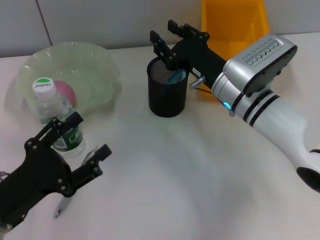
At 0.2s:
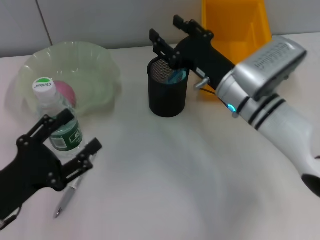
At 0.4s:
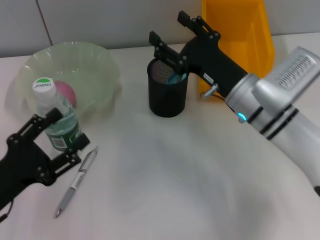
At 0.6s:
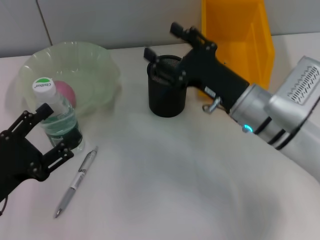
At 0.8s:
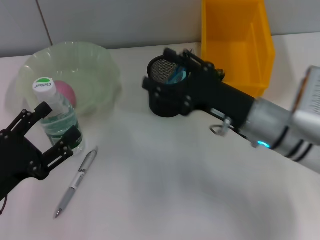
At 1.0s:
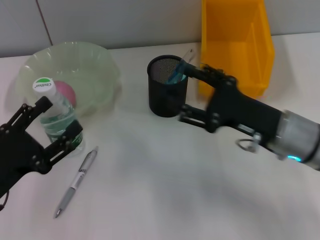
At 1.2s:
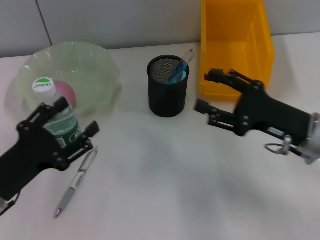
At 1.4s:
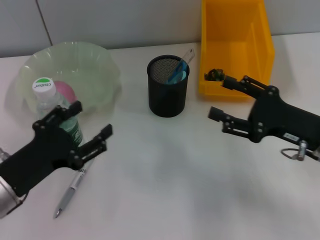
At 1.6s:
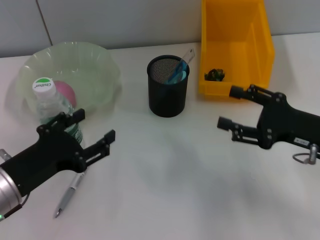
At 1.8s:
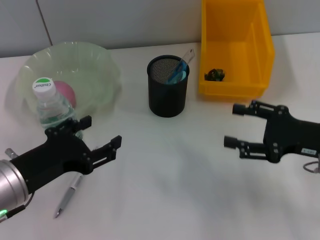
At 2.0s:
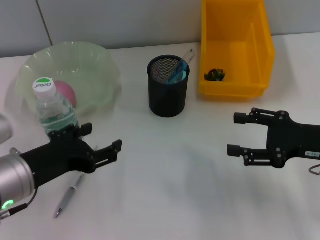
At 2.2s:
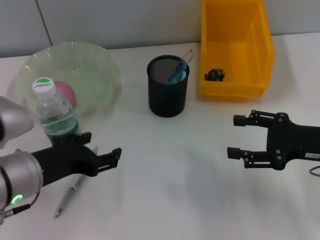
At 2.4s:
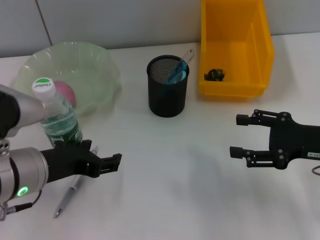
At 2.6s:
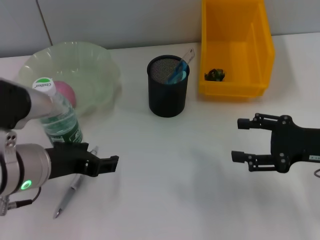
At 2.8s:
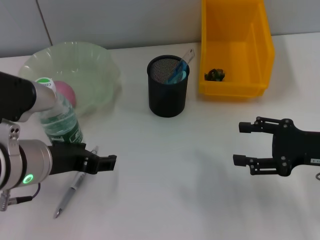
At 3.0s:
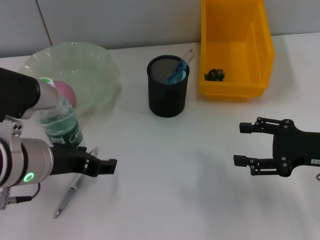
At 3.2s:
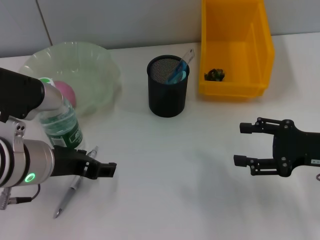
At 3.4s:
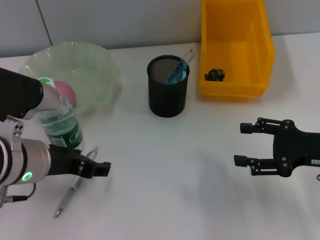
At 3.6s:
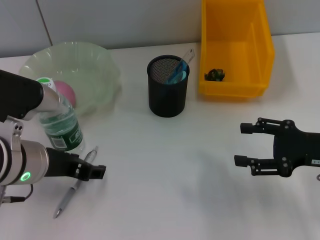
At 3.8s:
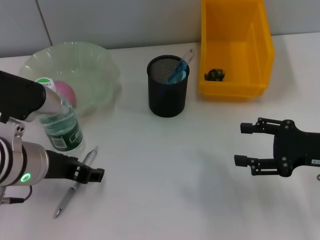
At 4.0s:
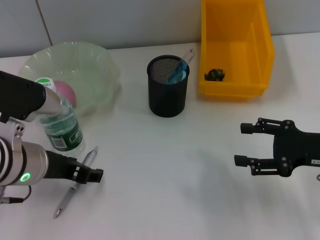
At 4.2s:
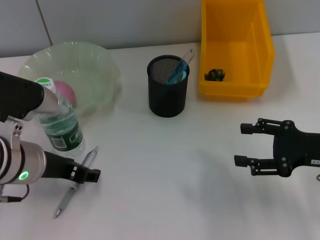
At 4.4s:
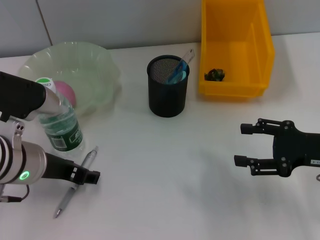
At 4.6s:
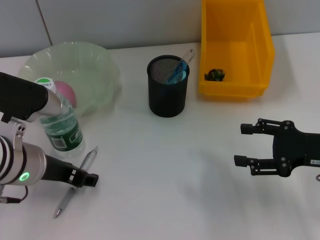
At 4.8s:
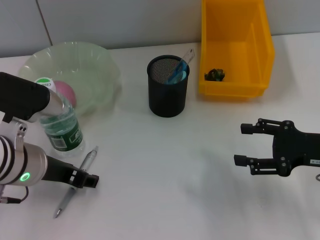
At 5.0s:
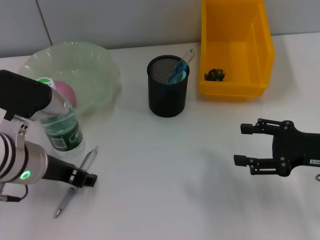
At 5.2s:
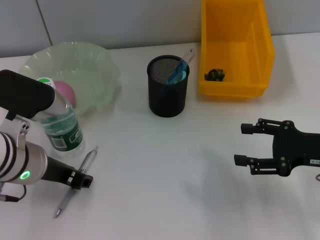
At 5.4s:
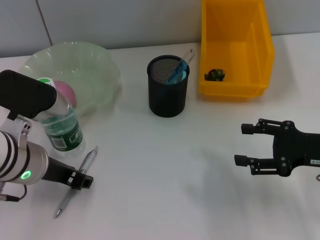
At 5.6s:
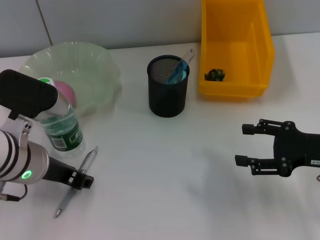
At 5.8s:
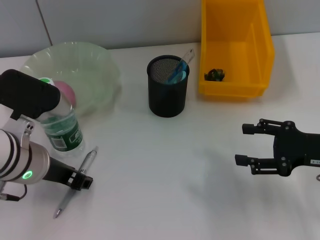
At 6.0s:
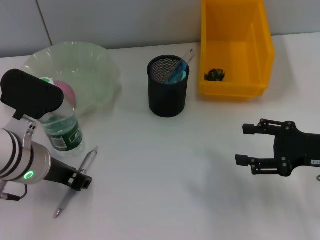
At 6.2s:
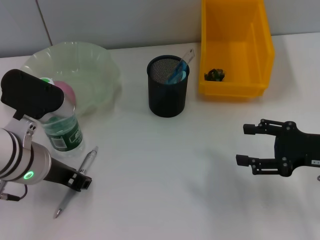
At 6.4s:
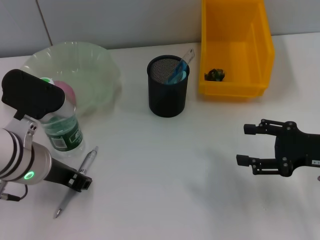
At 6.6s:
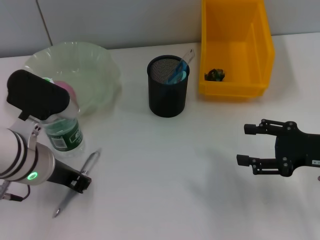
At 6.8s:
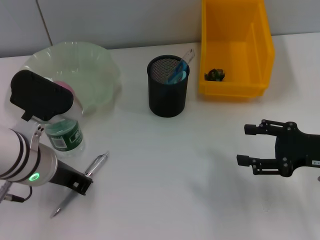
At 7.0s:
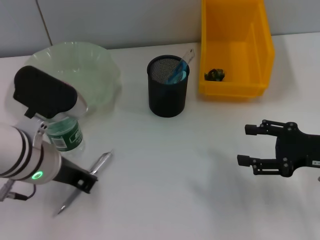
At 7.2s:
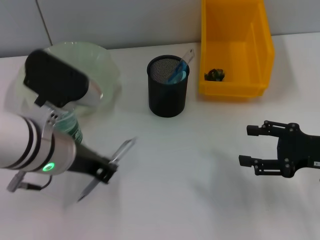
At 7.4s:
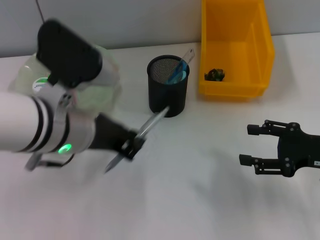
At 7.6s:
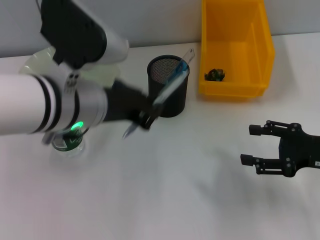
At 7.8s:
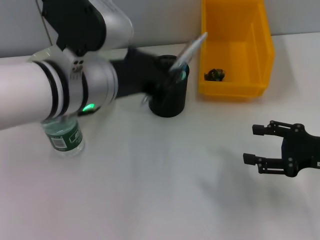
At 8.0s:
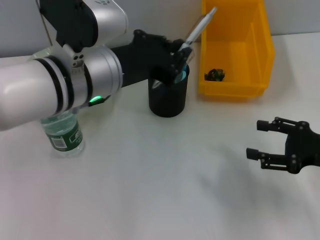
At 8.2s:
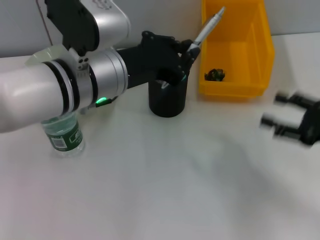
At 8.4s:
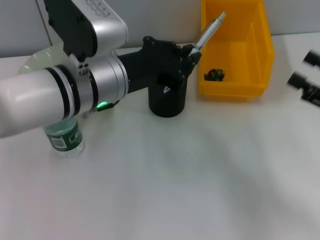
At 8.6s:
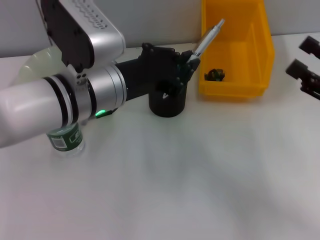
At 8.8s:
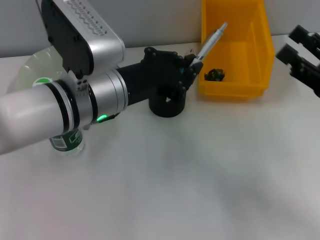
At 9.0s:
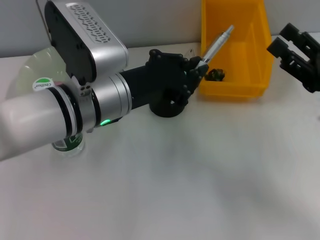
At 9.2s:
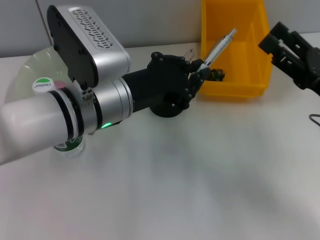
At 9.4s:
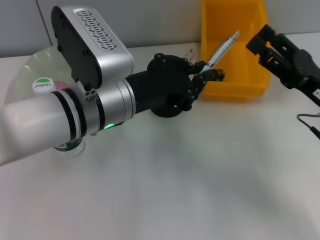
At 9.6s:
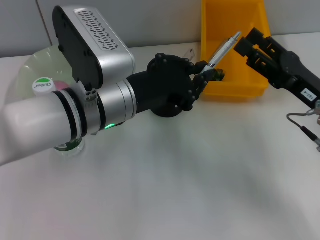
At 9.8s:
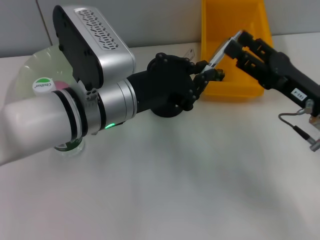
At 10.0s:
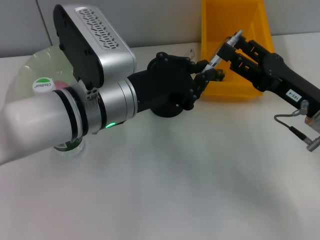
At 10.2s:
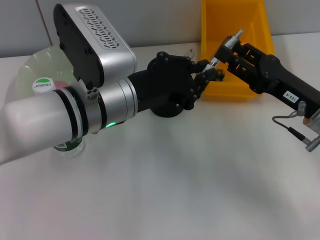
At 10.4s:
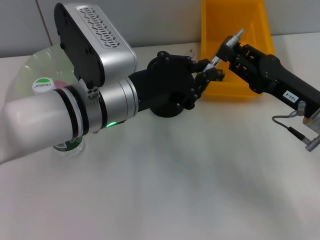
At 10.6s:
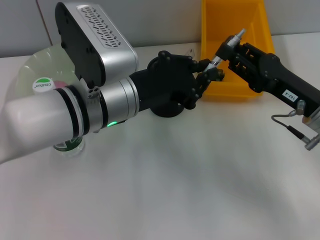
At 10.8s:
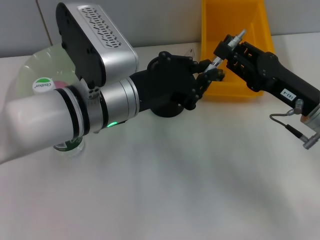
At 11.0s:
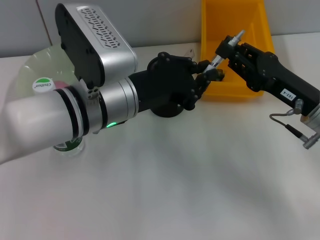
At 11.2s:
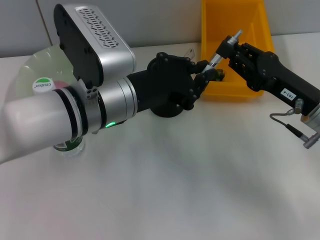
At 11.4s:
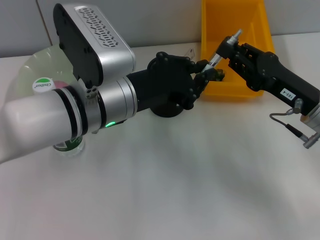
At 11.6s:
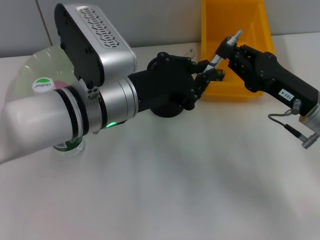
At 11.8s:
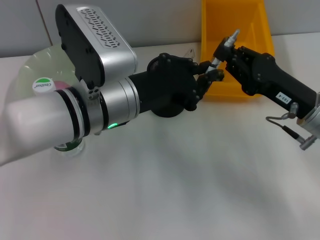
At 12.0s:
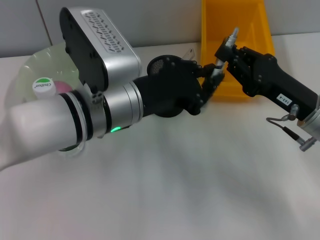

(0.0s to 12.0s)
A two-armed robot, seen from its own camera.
Step, 0.2s - 6.6s: Grab the gray spring-action pen with the left hand.
0.0s - 1.6s: The right gripper goes approximately 15 cm to the right and backward, and opens. The left gripper ends up approximately 5 cm from where it was.
1.6s - 3.0s: The left gripper goes some 5 cm forward.
3.0s - 4.4s: The grippers stay close to where they were, moving slightly.
4.4s - 6.0s: The left gripper closes its fingers.
6.0s - 7.6s: The left gripper goes some 10 cm upward and to the right, and closes its fingers.
9.0s - 10.4s: The right gripper changes place by about 5 cm.
10.4s - 12.0s: The right gripper closes.

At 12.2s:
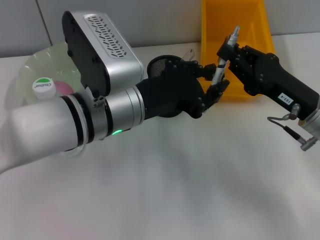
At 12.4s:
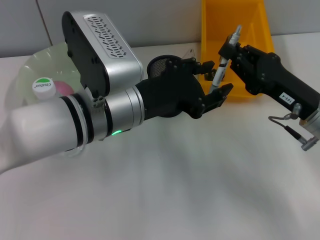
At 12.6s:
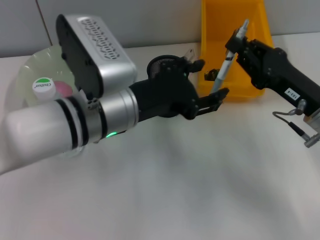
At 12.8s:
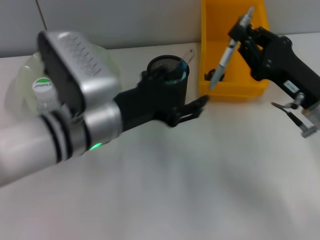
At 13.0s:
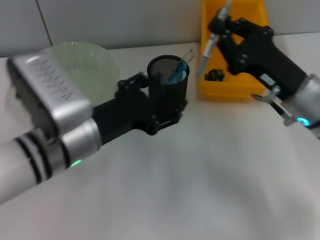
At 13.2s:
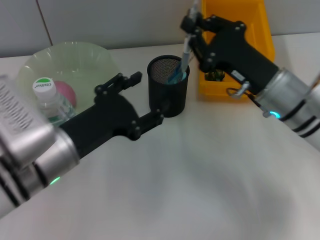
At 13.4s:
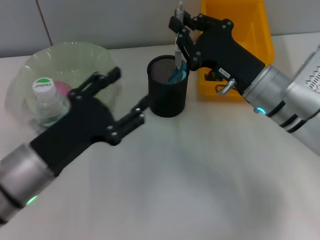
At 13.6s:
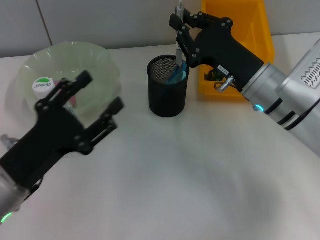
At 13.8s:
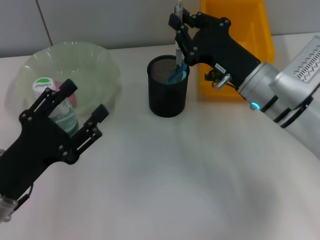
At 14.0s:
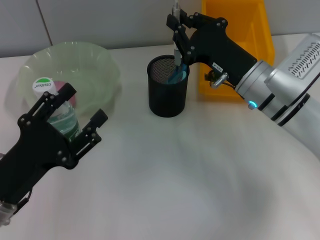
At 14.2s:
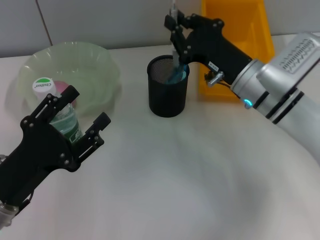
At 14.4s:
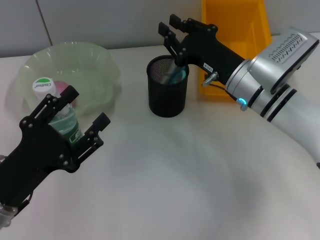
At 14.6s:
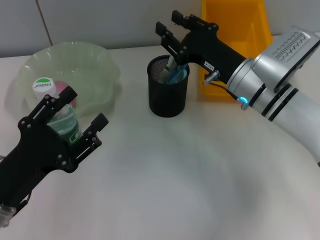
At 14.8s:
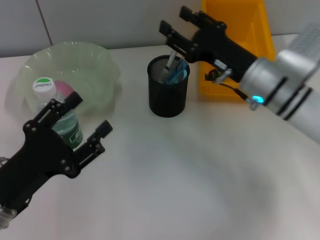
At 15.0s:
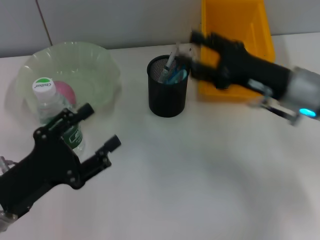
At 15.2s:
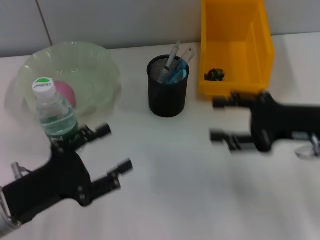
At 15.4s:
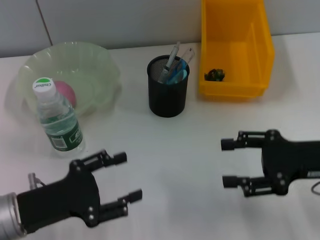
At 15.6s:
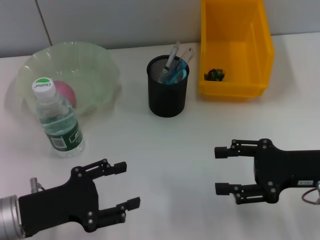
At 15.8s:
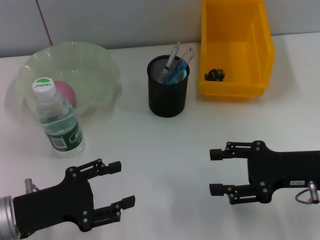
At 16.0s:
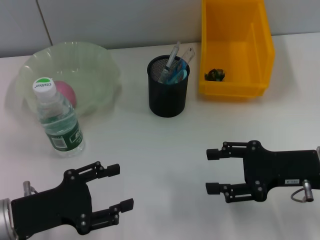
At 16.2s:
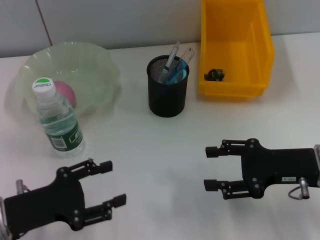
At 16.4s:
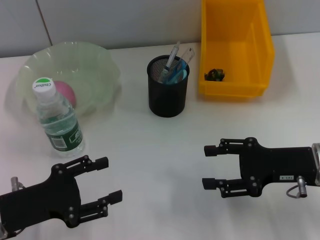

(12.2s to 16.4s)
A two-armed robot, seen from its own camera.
Step, 12.4s - 14.6s: Place the gray spring-action pen into the pen holder with the right hand.
12.2s - 13.6s: The right gripper shifts about 10 cm to the left and forward. The left gripper goes approximately 20 cm to the left, backward and downward, and opens its fingers.
13.6s - 15.0s: The right gripper goes approximately 5 cm to the right, and opens its fingers.
15.0s - 16.4s: The right gripper moves backward, approximately 5 cm.

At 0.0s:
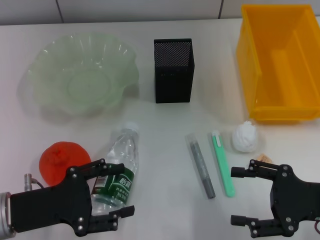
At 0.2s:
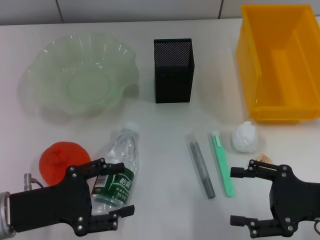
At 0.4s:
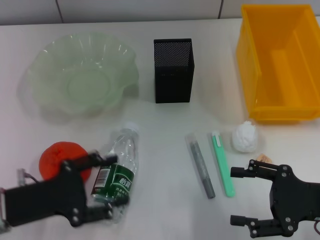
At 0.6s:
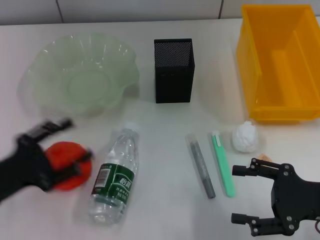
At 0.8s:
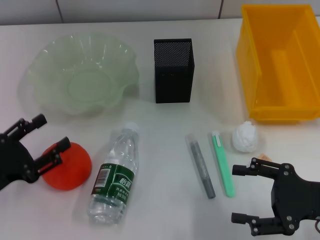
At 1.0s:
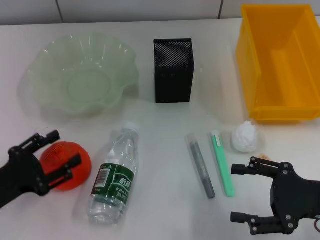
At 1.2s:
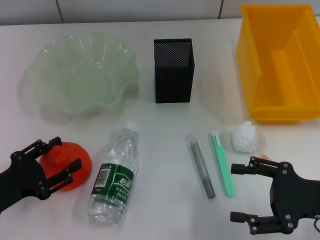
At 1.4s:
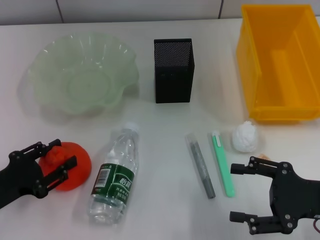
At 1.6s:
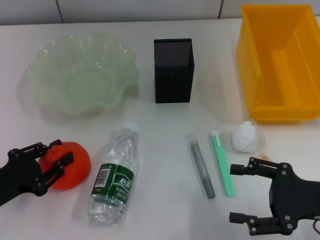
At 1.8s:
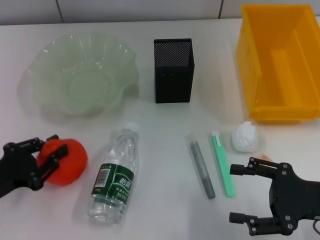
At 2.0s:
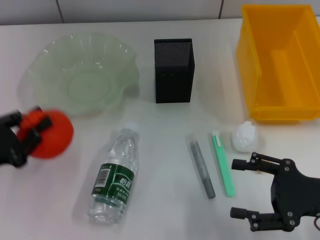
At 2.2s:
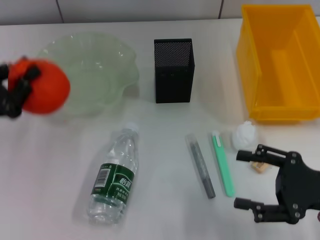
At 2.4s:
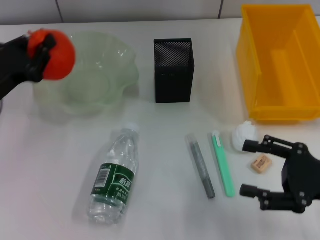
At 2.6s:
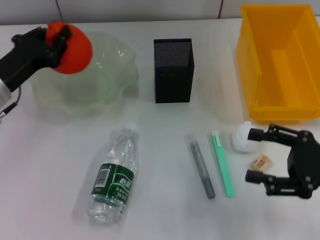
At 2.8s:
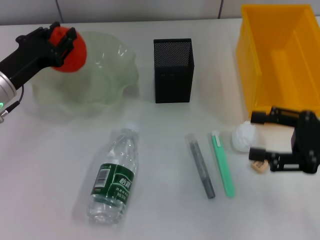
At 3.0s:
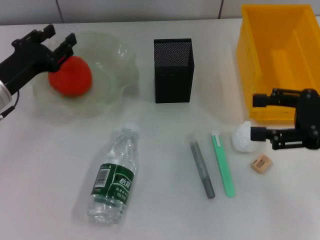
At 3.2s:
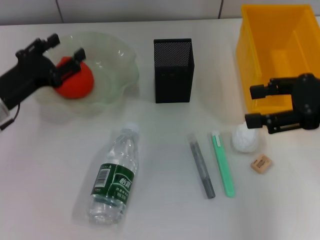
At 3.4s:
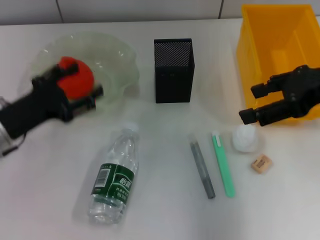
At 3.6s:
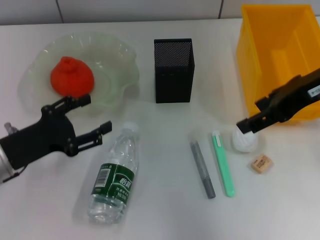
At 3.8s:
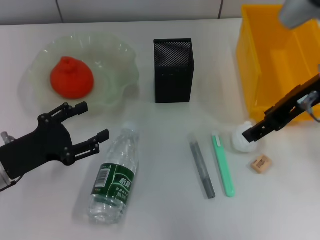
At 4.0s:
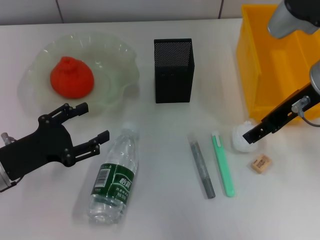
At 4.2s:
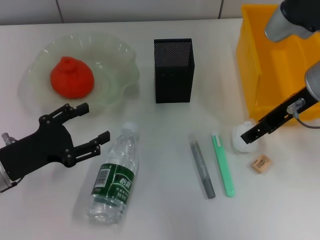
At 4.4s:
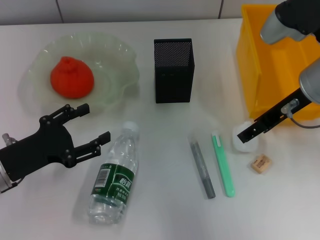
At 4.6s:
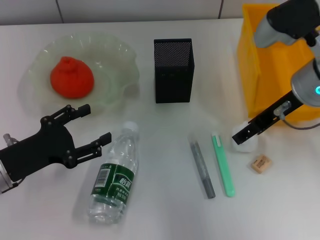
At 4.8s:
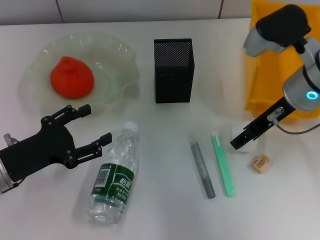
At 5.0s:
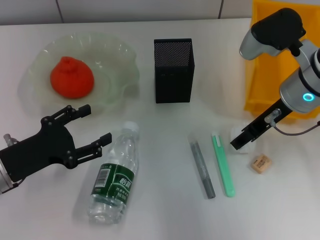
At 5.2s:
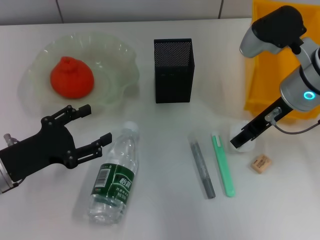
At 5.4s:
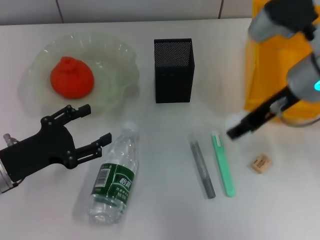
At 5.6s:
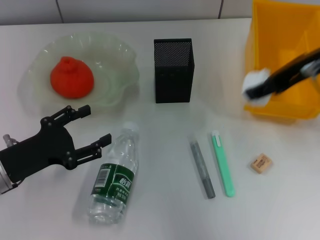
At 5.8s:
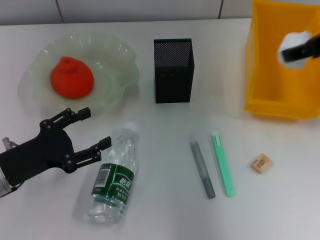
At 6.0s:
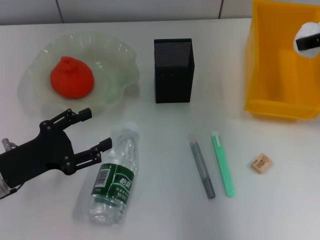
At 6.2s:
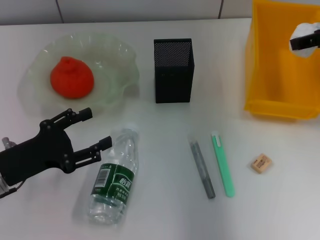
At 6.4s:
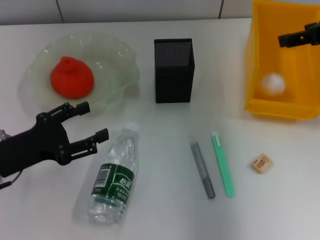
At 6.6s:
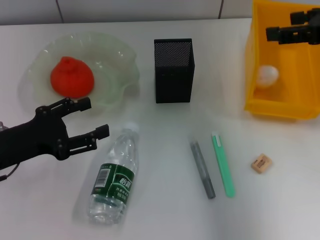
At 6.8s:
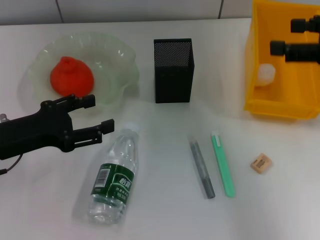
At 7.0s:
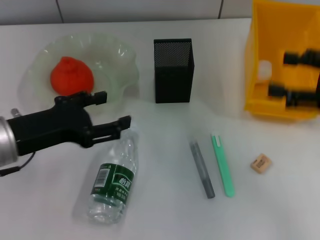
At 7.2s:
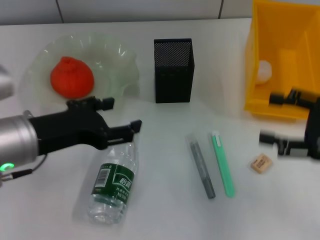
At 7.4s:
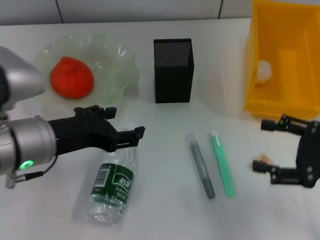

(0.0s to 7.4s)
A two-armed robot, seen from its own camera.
Step, 0.0s - 1.4s: Grab the orange with the left hand.
Step, 1.6s - 2.8s: Place the orange into the fruit bowl with the left hand.
Step, 3.2s - 5.0s: Grab the paper ball with the right hand.
Step, 5.2s - 6.2s: Place the paper ball into the trash can with the right hand.
0.0s - 1.4s: The left gripper heads to the left, covering roughly 5 cm.
1.4s - 3.0s: The right gripper is displaced upward and forward by approximately 10 cm. Meanwhile the left gripper heads forward, covering about 15 cm, and closes its fingers.
3.0s - 4.4s: The right gripper is displaced to the left and forward by some 15 cm, while the left gripper travels backward by some 10 cm, and opens.
4.4s - 6.0s: The right gripper is displaced to the right and upward by about 10 cm, and closes.
6.0s - 7.4s: The left gripper moves upward and to the right, some 15 cm. The right gripper moves downward and backward, some 20 cm, and opens.
